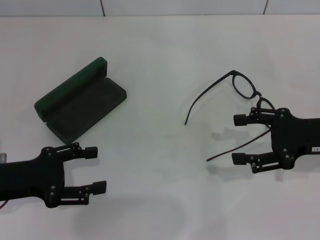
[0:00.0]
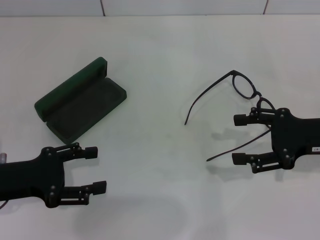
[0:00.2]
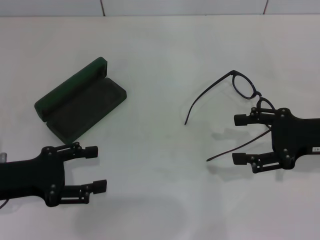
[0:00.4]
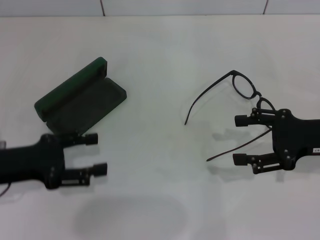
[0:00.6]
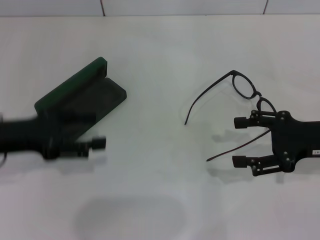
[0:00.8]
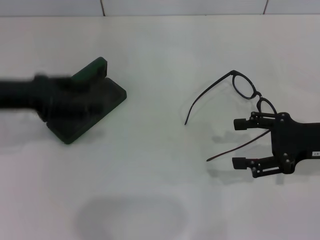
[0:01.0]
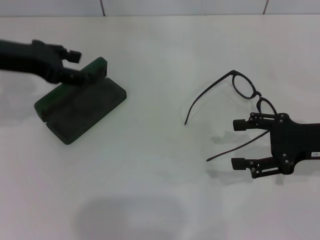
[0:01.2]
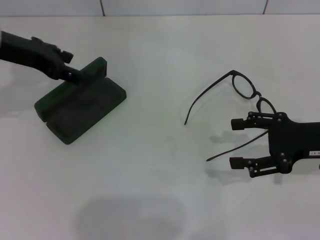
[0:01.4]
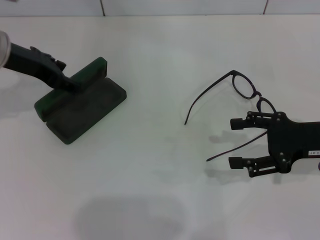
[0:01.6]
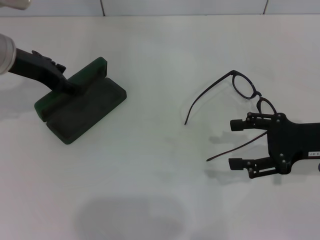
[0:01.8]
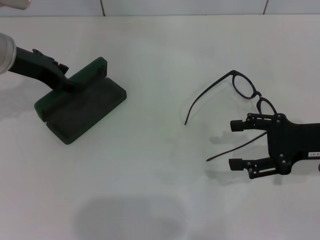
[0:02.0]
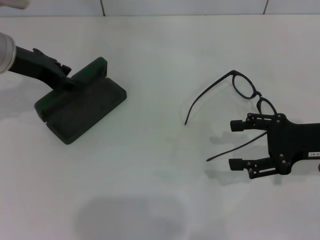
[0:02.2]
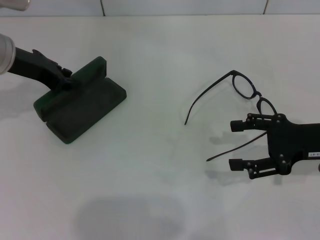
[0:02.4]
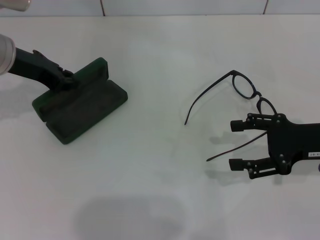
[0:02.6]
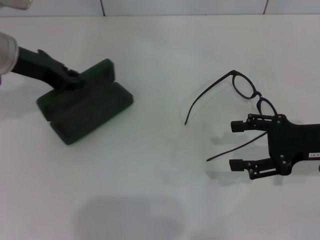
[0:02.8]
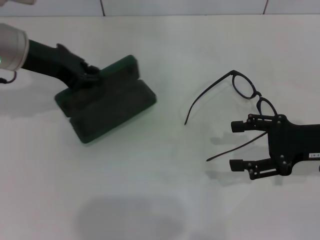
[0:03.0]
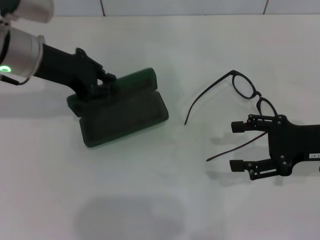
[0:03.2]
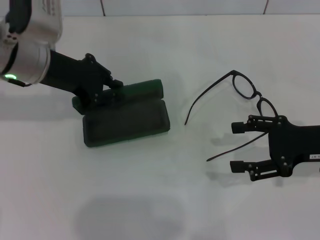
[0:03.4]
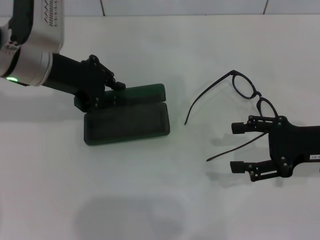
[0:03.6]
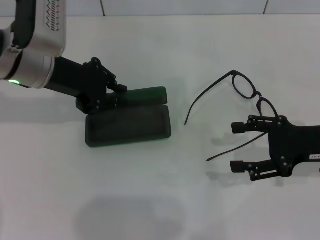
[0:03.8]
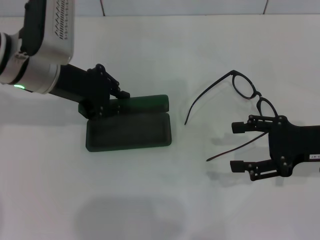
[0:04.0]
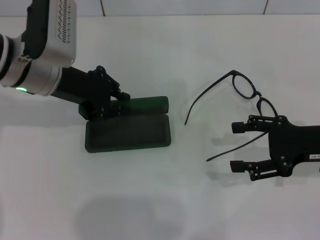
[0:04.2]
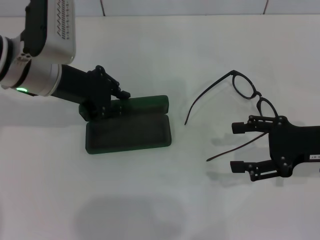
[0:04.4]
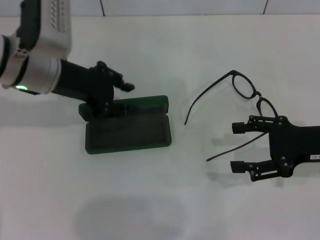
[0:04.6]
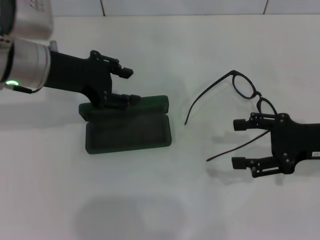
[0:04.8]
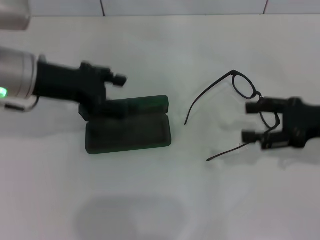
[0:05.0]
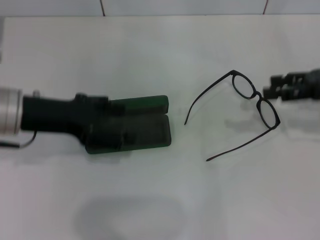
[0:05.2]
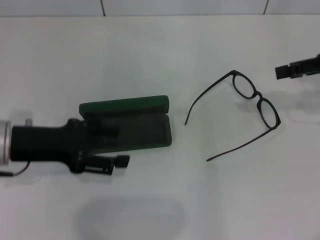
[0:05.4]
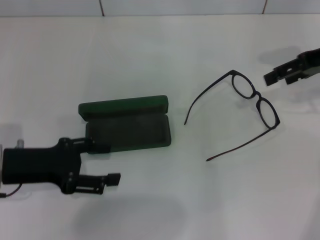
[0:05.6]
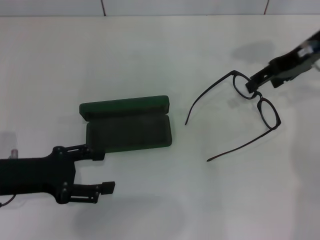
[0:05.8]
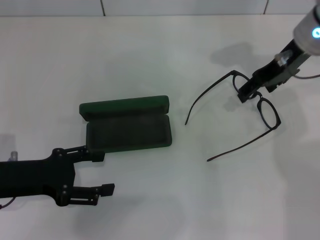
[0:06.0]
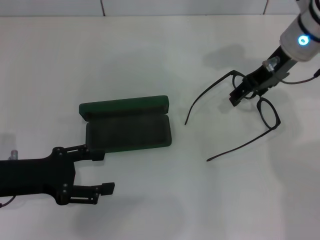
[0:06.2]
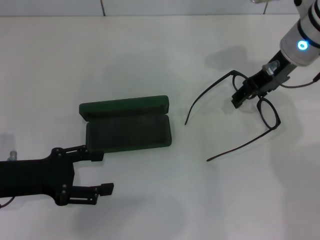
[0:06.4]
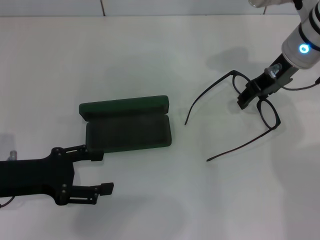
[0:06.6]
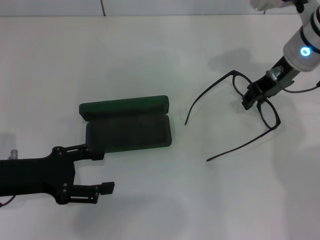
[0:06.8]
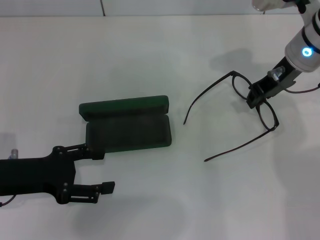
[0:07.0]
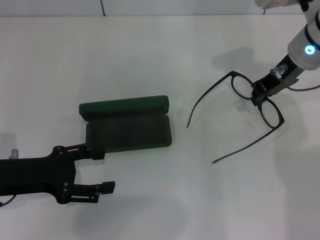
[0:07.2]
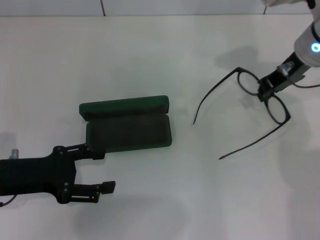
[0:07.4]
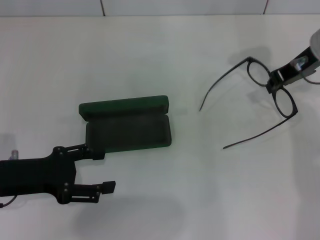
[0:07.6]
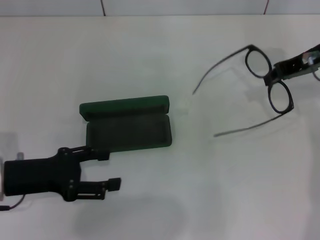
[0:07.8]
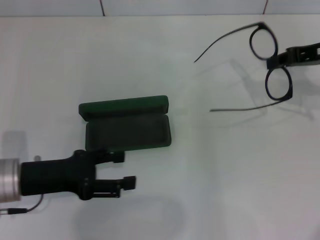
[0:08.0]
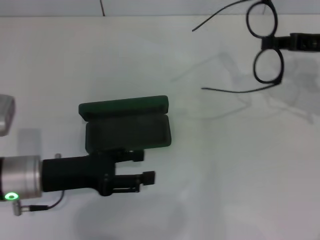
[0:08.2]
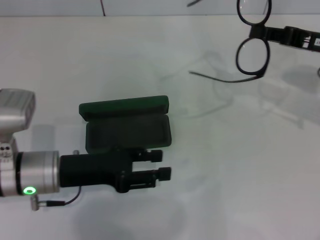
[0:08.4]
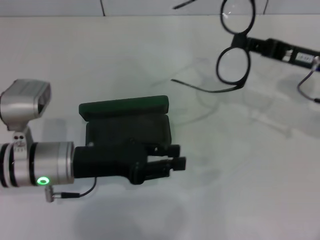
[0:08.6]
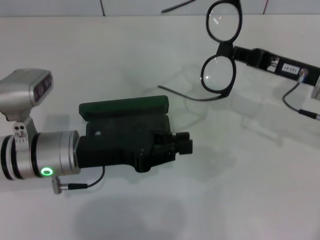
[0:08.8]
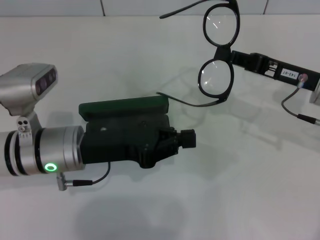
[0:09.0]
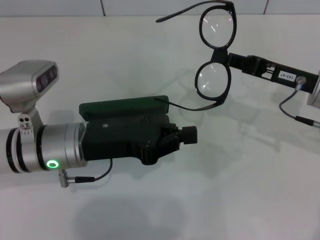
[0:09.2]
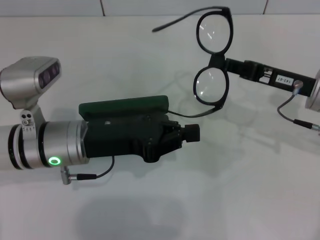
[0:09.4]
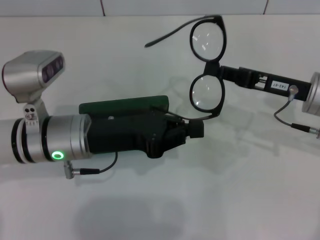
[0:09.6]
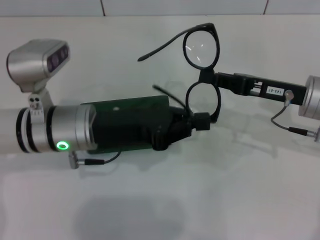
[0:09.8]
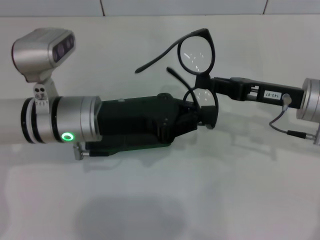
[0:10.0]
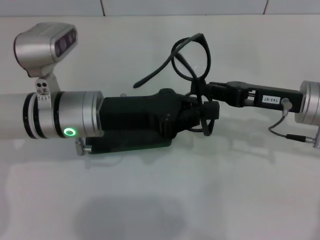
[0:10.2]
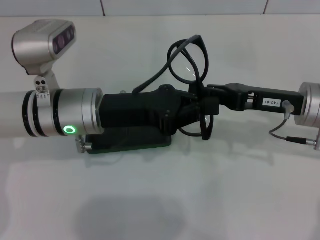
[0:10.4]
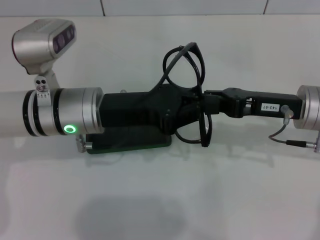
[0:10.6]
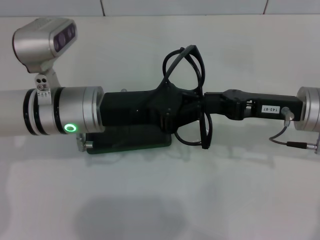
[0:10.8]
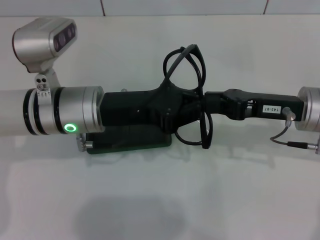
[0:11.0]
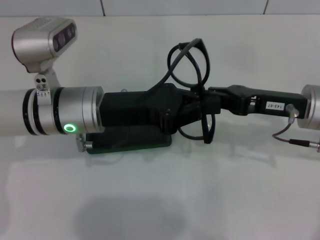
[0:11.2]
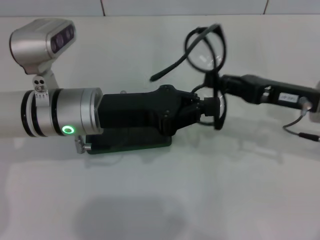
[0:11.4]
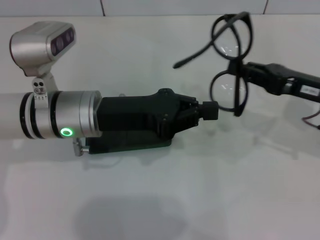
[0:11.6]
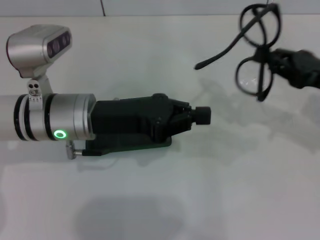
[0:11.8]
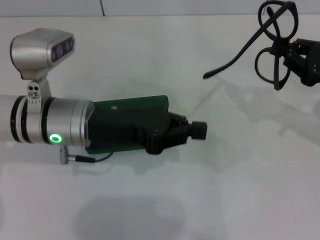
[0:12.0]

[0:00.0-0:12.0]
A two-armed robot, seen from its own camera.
Step, 0:00.0 to 0:02.4: Grab the glasses case with your left hand.
Step, 0:02.6 to 0:04.2: Place the glasses case in the center of the table with your left hand.
Step, 0:04.6 to 0:07.0: Grab the eyeglass frame with your right hand.
0:00.0 to 0:01.6: The left gripper goes approximately 20 cm forward and upward.
0:01.6 to 0:03.0: The left gripper closes its fingers.
0:04.4 to 0:06.0: The left gripper shifts about 15 cm backward, to the left and downward, and opens up. The right gripper is displaced forward, upward and to the left by approximately 20 cm.
0:06.0 to 0:07.6: The right gripper closes.
0:07.6 to 0:09.0: The left gripper travels to the right by roughly 10 cm, and closes, while the right gripper travels backward and downward by approximately 10 cm.
0:09.0 to 0:10.4: The left gripper shifts by approximately 5 cm.
0:10.4 to 0:12.0: The right gripper is displaced to the right by some 10 cm.

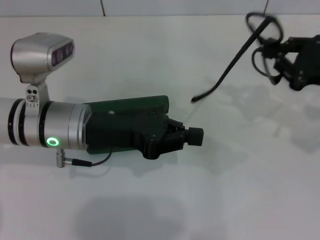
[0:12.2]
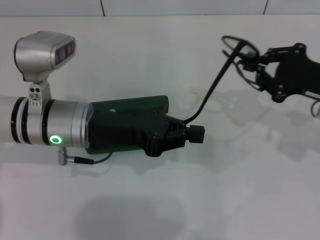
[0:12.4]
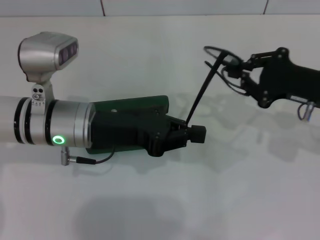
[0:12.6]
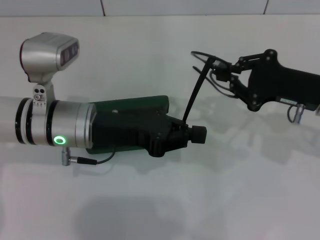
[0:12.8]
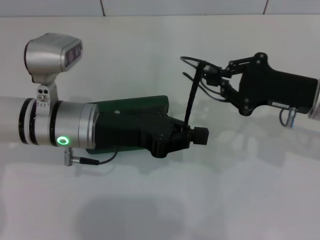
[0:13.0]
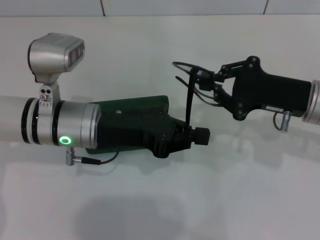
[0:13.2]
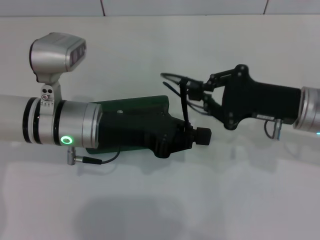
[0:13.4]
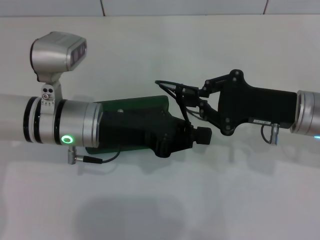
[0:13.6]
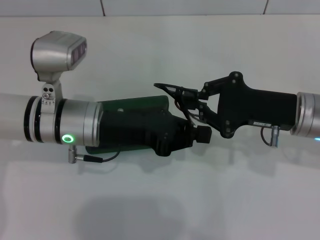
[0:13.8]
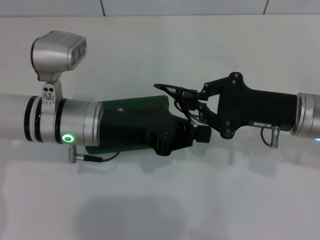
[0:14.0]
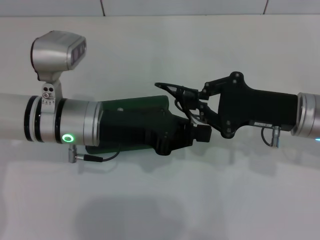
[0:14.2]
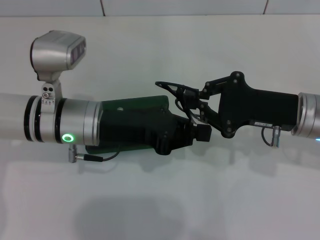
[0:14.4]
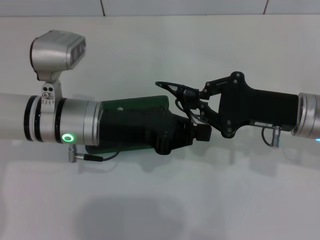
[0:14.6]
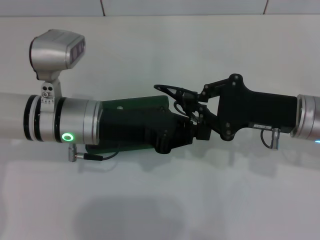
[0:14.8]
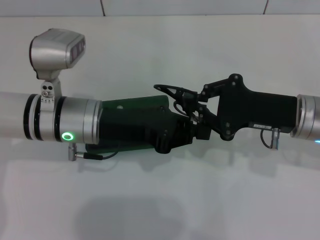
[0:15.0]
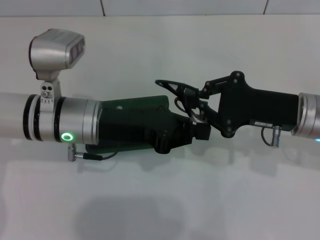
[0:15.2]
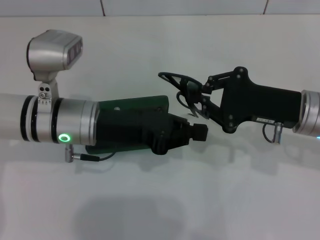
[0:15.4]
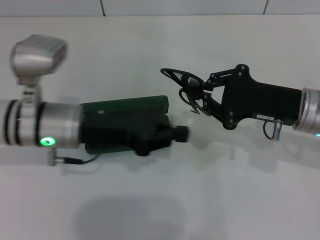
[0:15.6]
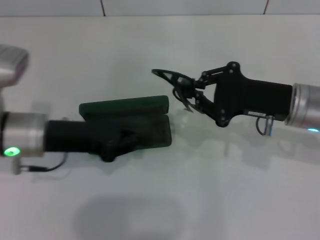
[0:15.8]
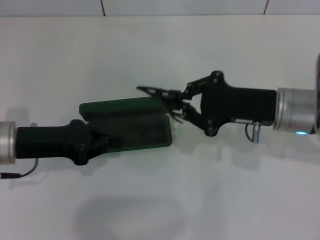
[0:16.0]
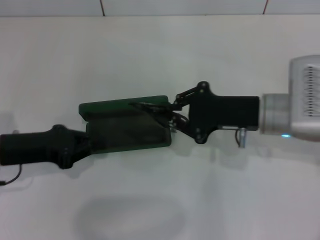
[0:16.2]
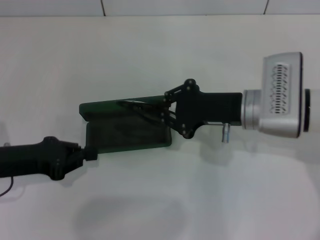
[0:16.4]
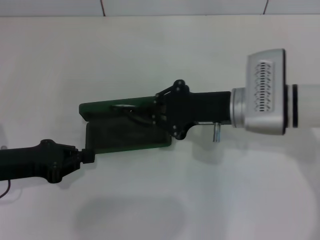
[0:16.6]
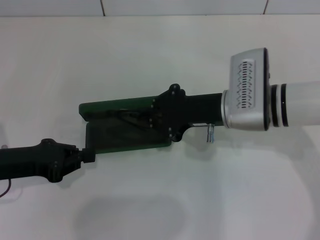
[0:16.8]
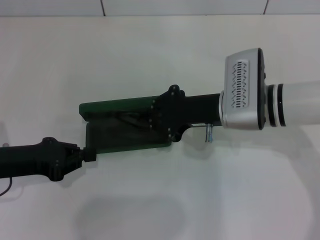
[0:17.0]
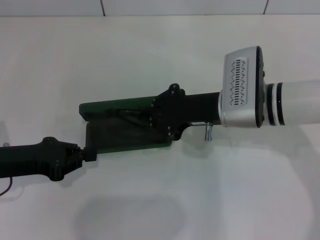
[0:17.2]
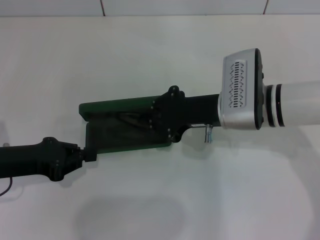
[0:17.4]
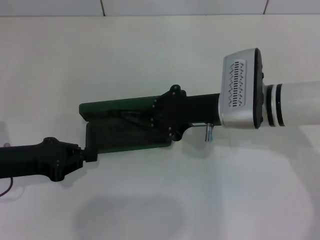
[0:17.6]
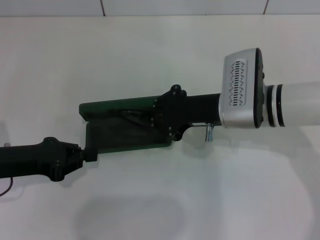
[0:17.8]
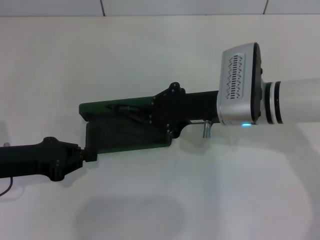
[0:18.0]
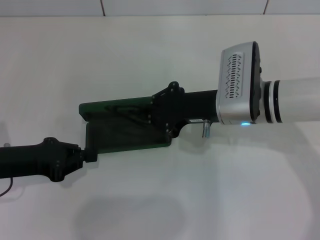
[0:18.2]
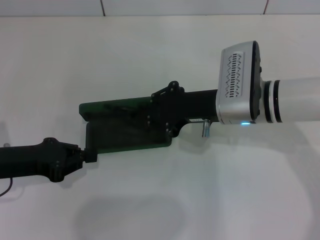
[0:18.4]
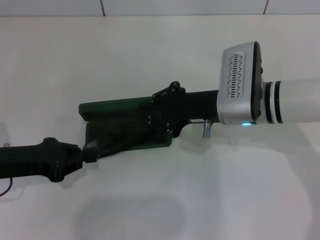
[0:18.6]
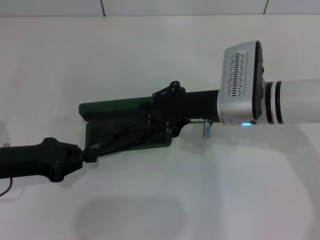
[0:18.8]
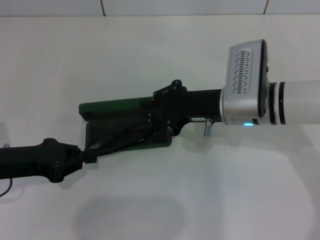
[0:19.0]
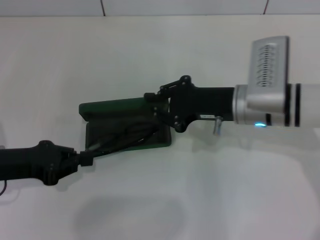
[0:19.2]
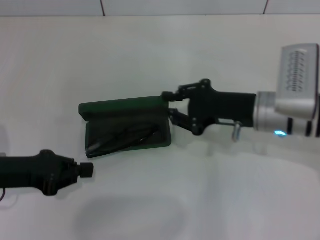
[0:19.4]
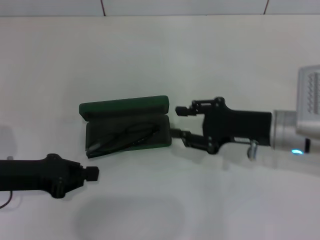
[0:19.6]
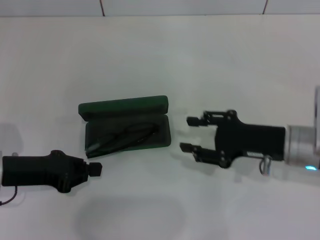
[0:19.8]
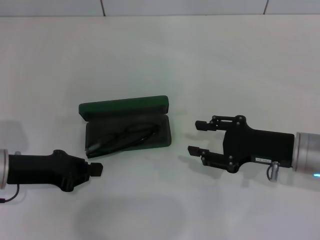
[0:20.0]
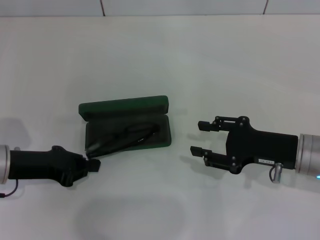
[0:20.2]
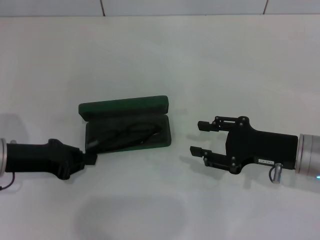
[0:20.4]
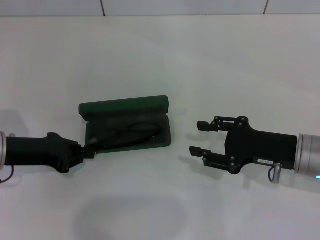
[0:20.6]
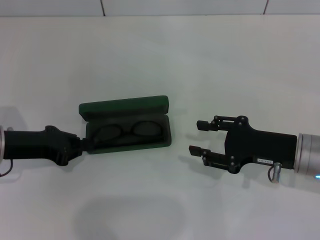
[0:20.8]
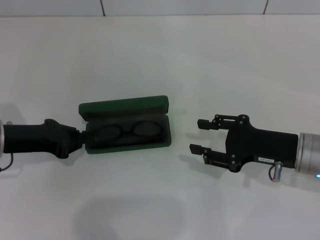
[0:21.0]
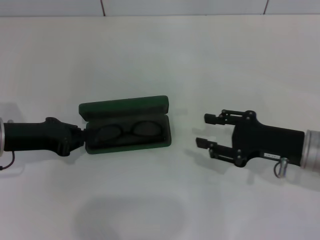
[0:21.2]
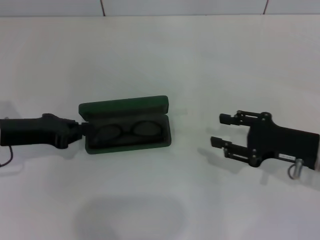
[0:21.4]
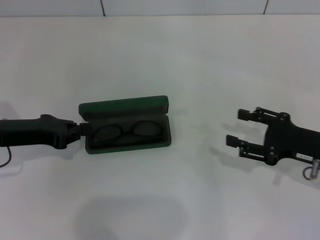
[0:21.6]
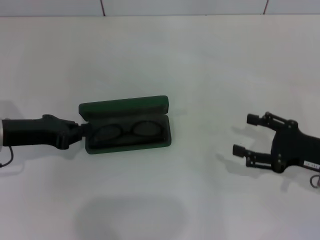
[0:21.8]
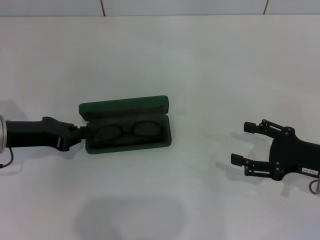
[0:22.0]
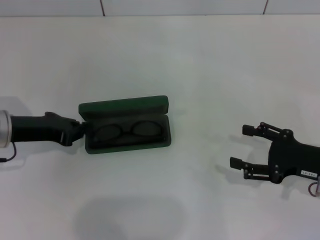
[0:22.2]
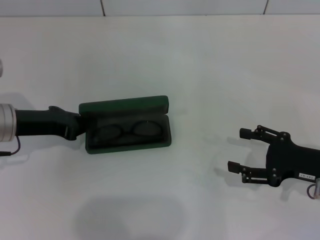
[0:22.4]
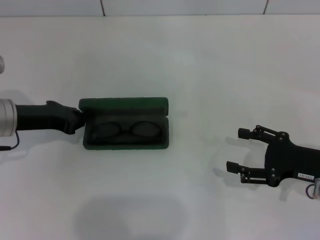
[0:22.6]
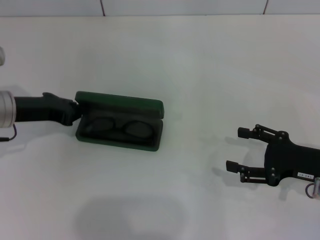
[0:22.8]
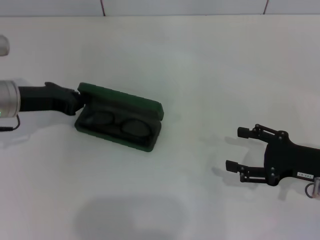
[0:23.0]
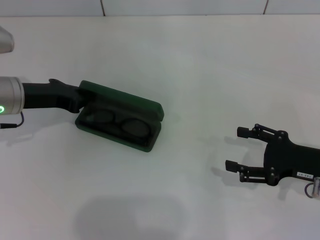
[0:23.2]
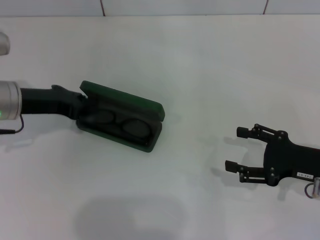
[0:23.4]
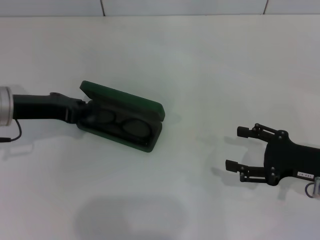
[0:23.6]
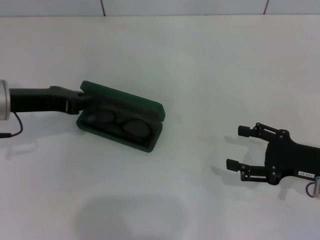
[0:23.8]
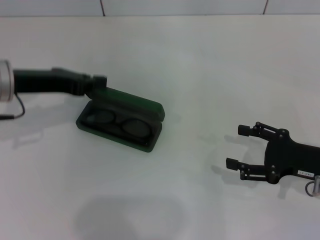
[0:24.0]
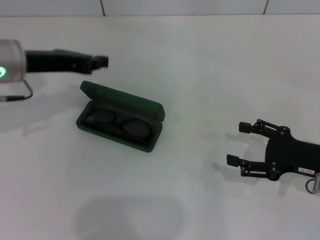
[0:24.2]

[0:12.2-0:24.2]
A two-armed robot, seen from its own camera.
Step, 0:12.2 to 0:15.0: Fold the frame with your left hand.
Step, 0:15.4 to 0:19.0: Put the glasses into the case with your right hand.
0:12.2 to 0:13.8: The right gripper is displaced to the left by about 10 cm.
0:13.8 to 0:15.2: Neither gripper changes place.
0:15.2 to 0:16.6: The right gripper travels to the left by about 10 cm. Meanwhile the left gripper goes about 15 cm to the left and backward.
0:16.6 to 0:18.2: The grippers stay close to where they were, moving slightly.
0:18.2 to 0:19.8: The right gripper is displaced to the right and backward by some 10 cm, and opens its fingers.
0:19.8 to 0:21.2: The grippers stay close to where they were, moving slightly.
0:21.2 to 0:22.6: The right gripper shifts some 5 cm to the right, and opens up.
0:22.6 to 0:24.2: The left gripper moves upward, about 10 cm.
